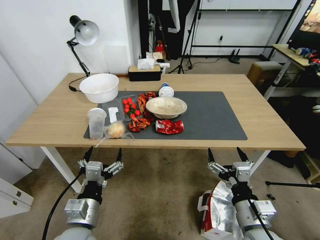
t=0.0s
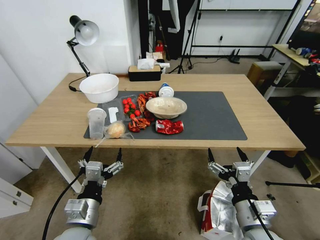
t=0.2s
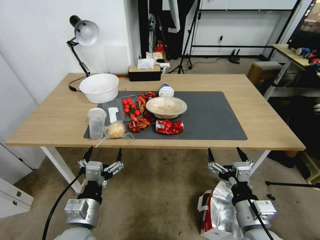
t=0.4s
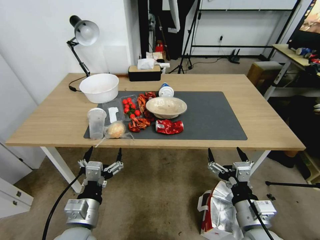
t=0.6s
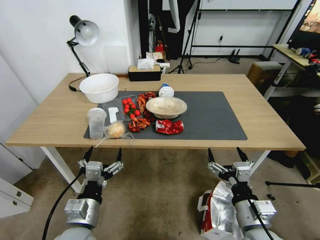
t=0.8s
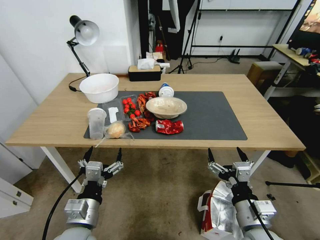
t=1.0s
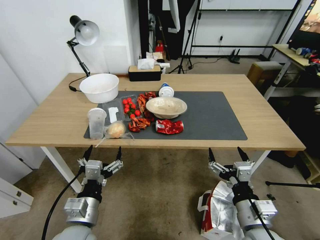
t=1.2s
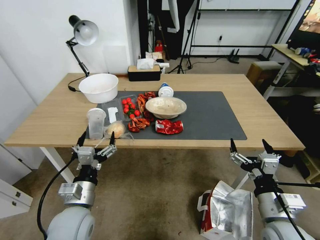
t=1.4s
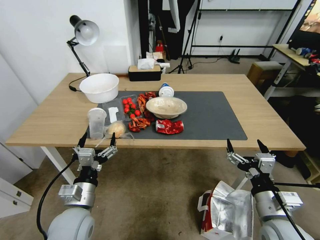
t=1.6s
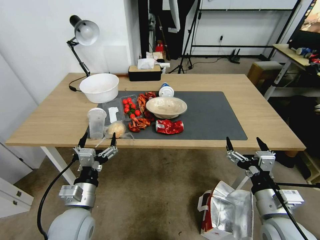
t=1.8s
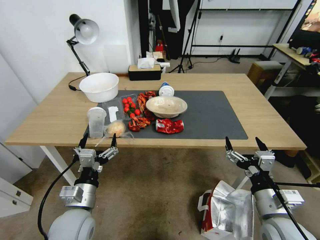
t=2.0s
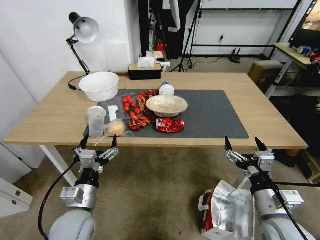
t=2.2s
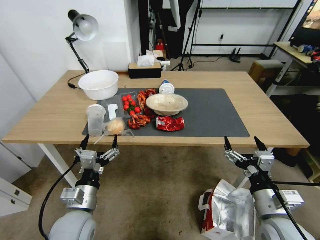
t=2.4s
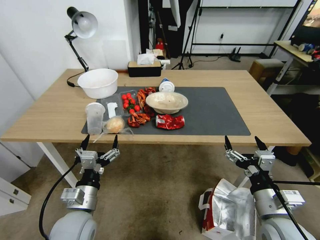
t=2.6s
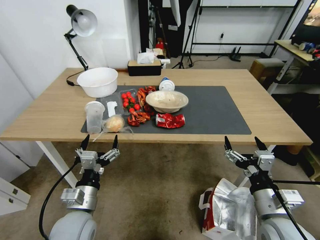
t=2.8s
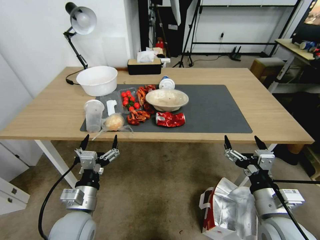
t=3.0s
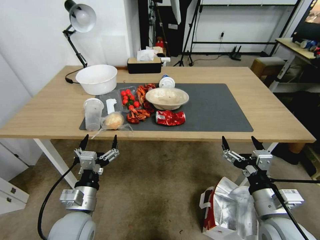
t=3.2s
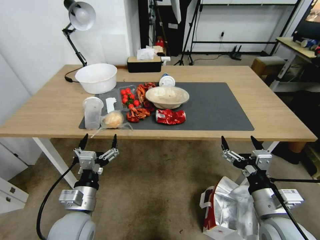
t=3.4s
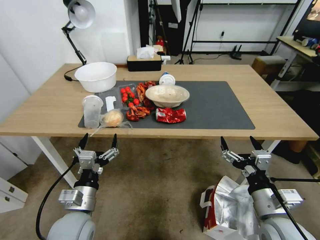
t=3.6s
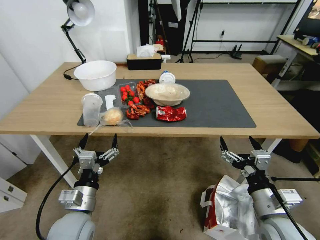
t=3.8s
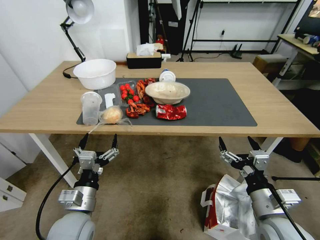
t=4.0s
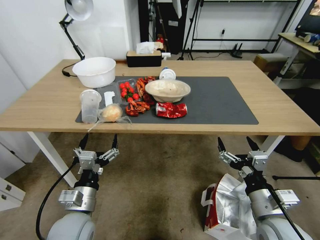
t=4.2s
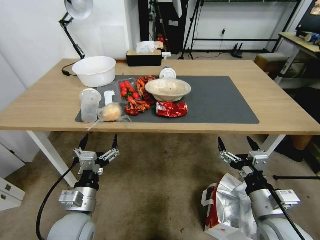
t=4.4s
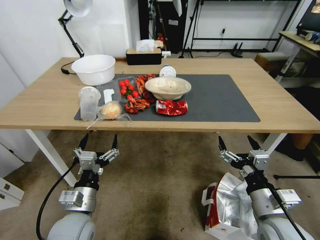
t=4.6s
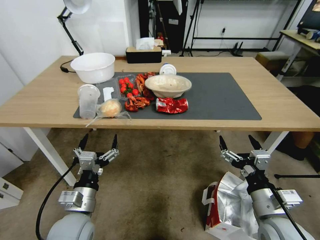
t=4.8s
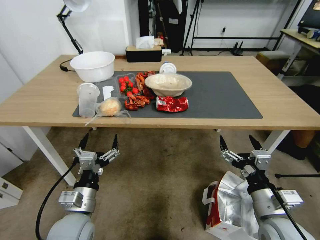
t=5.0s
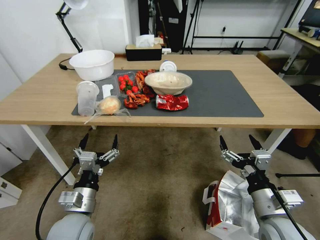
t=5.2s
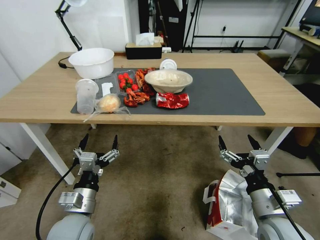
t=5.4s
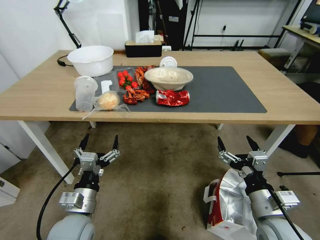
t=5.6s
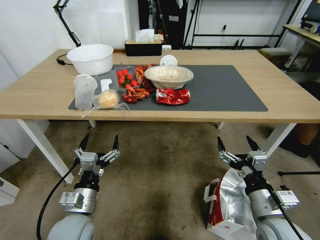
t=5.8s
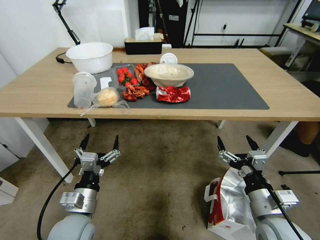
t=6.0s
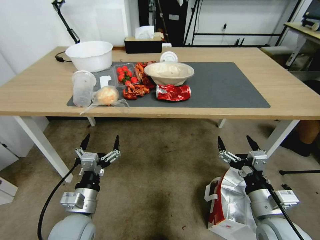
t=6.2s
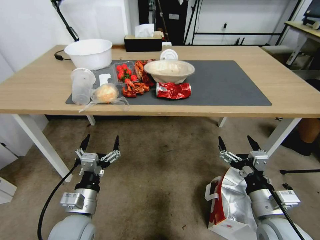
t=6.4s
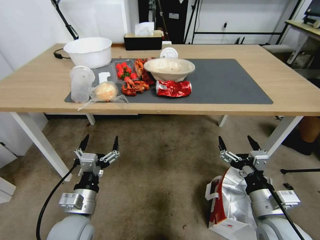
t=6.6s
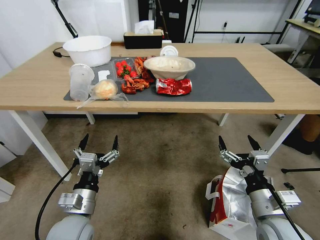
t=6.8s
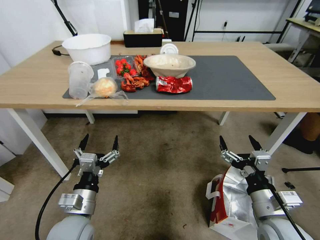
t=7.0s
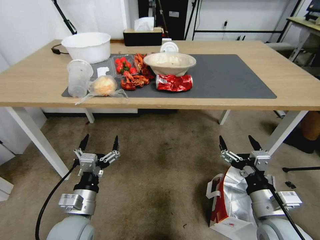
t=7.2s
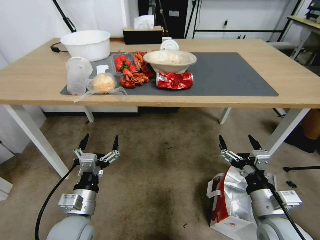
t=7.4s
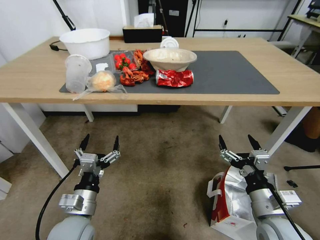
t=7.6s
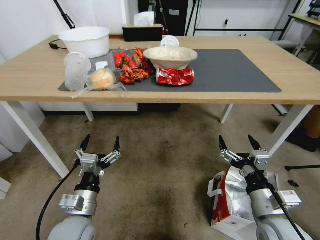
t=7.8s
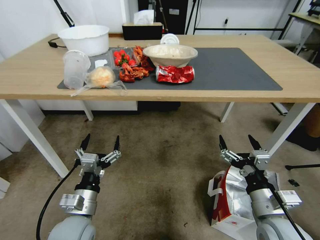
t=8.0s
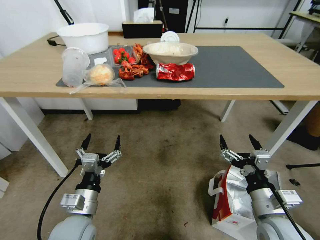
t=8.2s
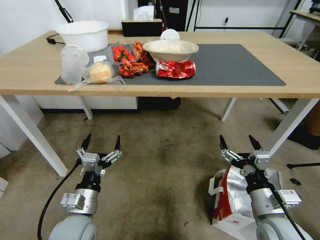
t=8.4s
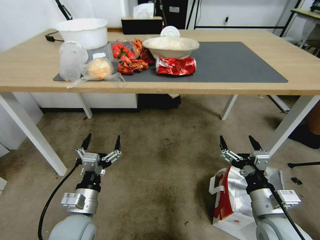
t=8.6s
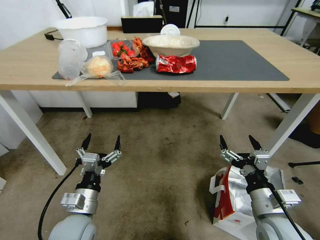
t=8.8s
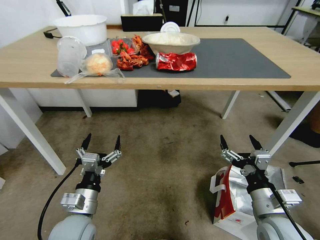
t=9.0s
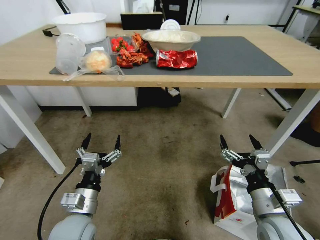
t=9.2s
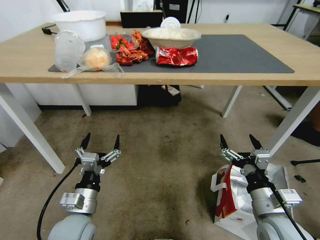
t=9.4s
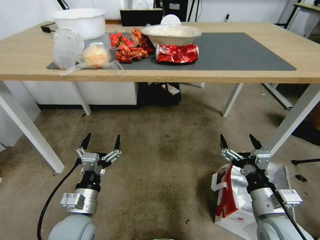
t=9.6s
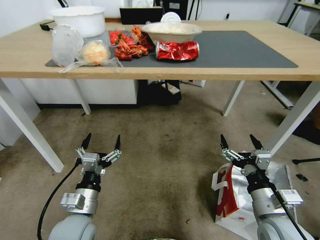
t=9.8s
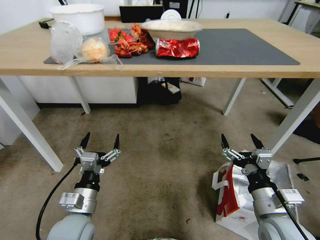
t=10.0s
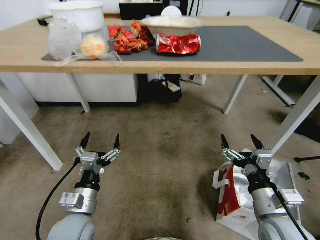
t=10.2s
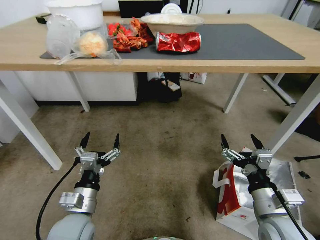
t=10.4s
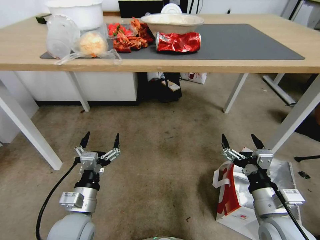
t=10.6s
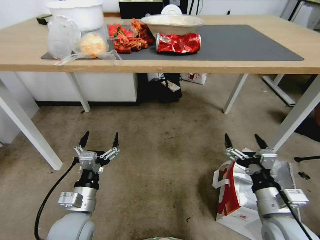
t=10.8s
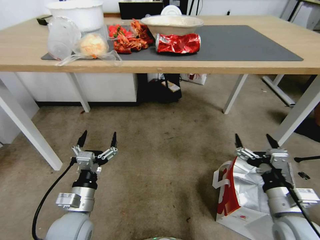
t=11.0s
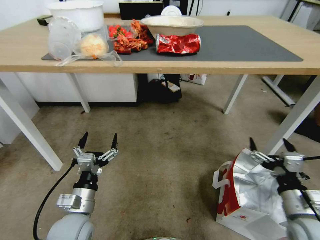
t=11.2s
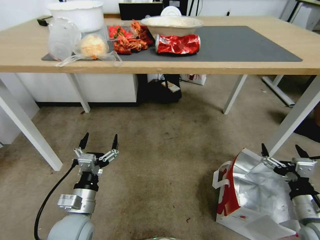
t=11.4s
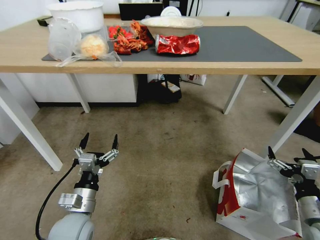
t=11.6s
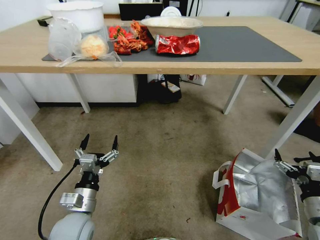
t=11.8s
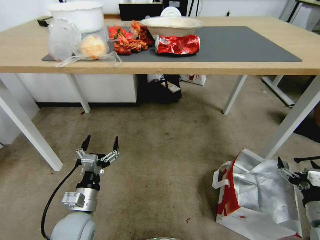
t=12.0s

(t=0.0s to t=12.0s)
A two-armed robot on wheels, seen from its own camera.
Task of the whole recording: Pick up the food delivery bag from the floor and place it on the table.
t=10.4s - t=12.0s: The right gripper goes roughly 20 cm to the right and downward.

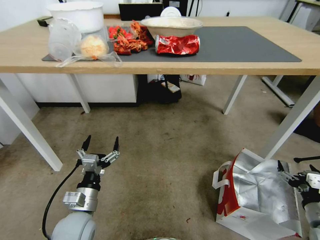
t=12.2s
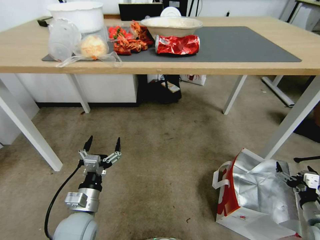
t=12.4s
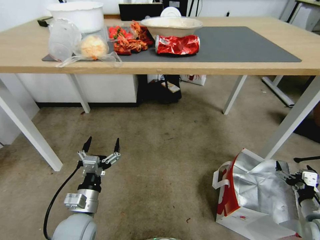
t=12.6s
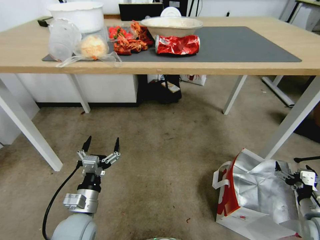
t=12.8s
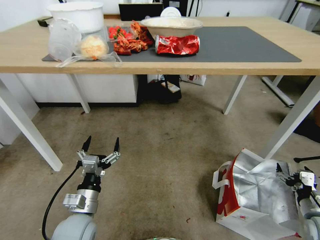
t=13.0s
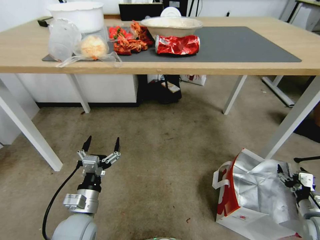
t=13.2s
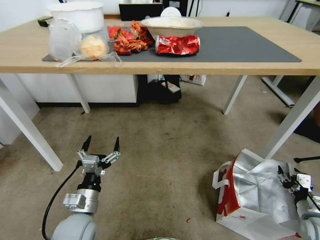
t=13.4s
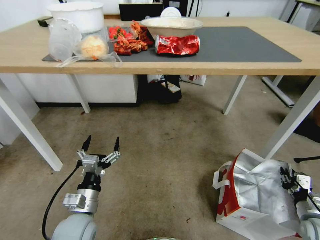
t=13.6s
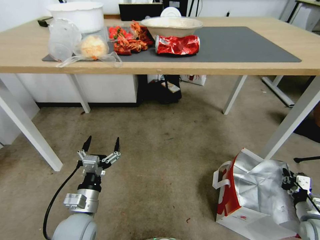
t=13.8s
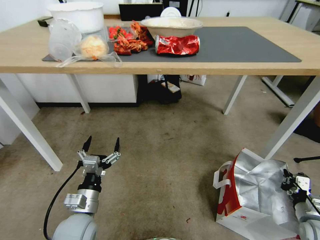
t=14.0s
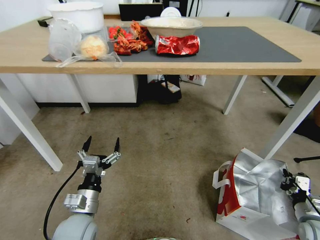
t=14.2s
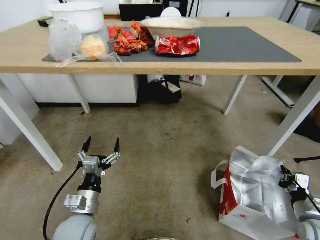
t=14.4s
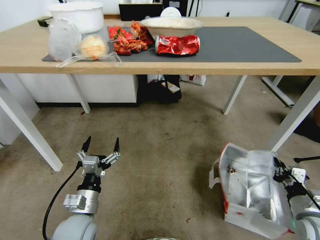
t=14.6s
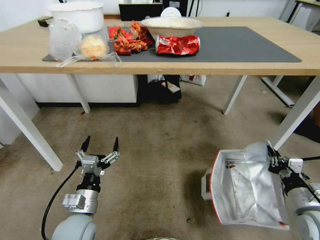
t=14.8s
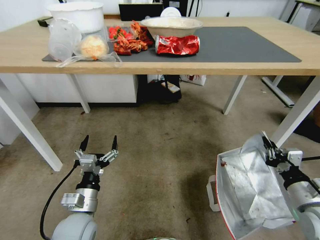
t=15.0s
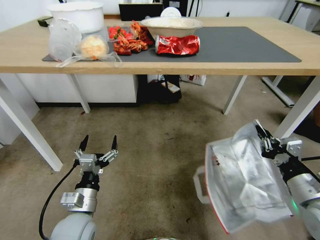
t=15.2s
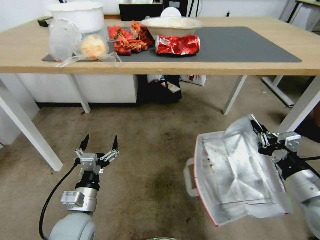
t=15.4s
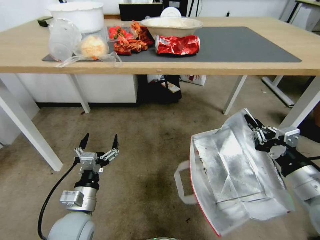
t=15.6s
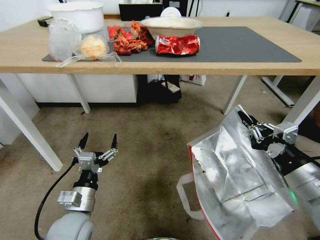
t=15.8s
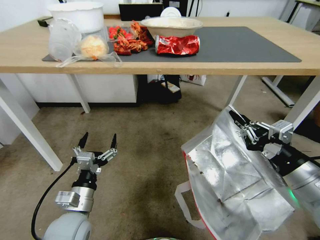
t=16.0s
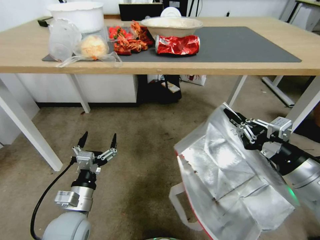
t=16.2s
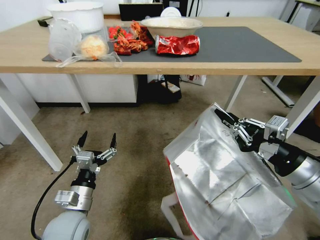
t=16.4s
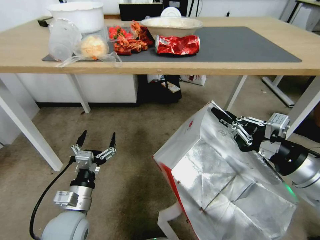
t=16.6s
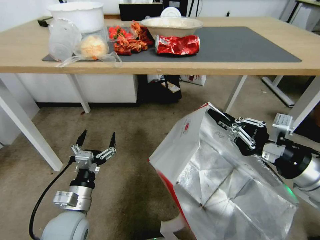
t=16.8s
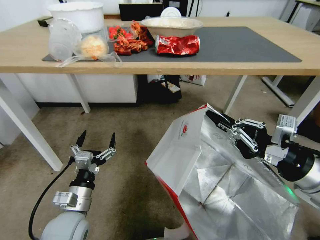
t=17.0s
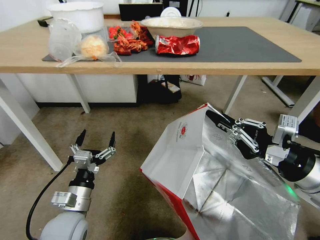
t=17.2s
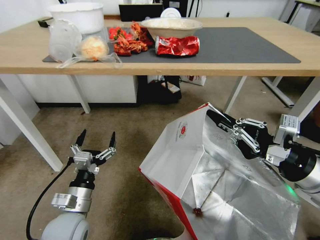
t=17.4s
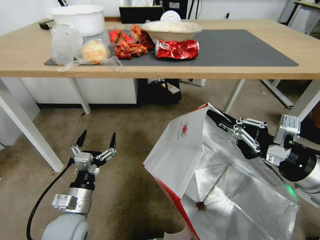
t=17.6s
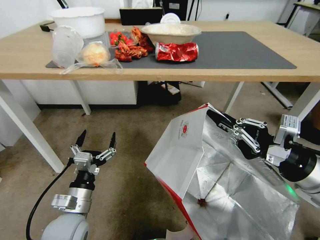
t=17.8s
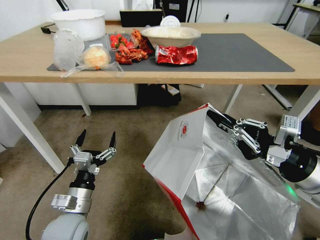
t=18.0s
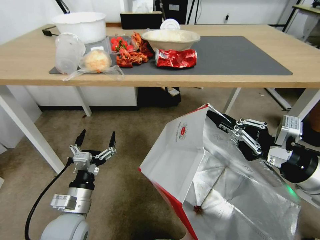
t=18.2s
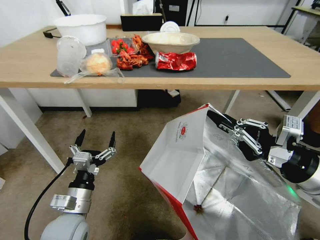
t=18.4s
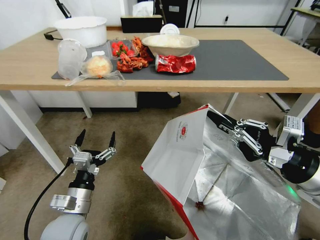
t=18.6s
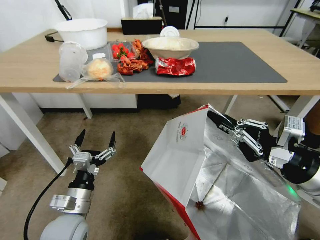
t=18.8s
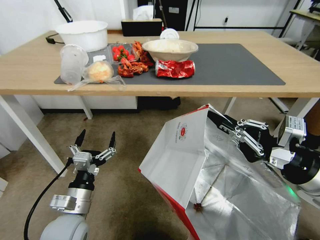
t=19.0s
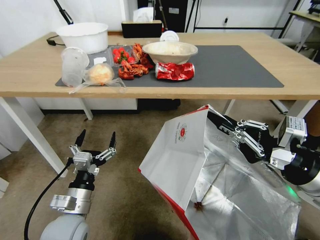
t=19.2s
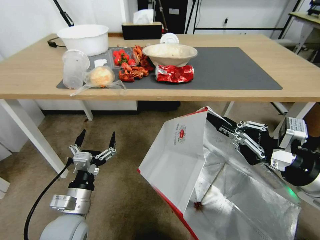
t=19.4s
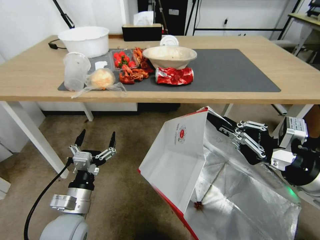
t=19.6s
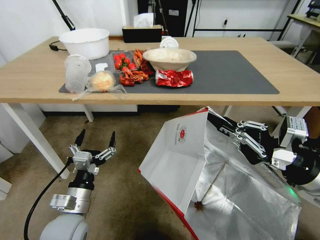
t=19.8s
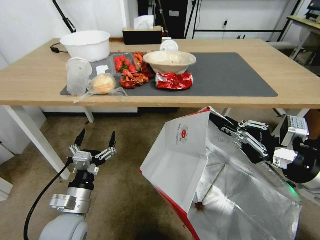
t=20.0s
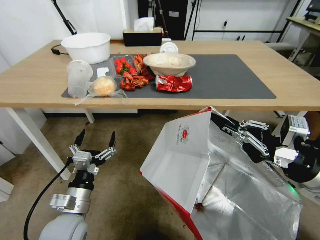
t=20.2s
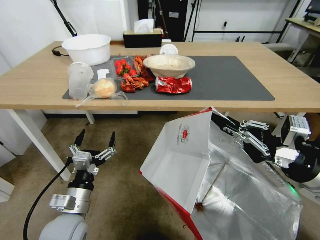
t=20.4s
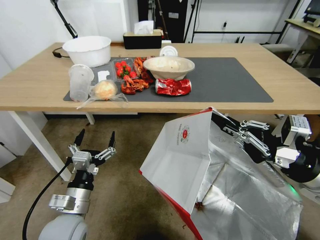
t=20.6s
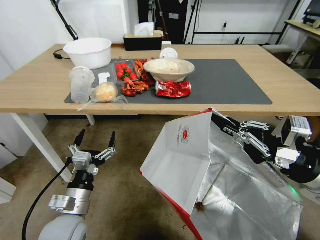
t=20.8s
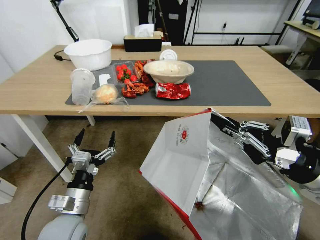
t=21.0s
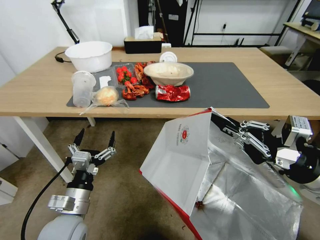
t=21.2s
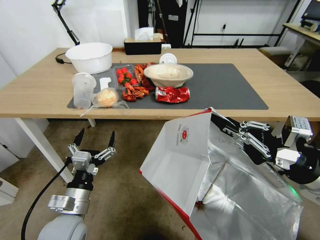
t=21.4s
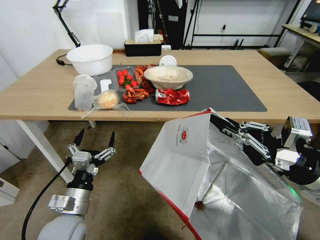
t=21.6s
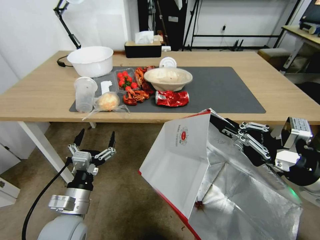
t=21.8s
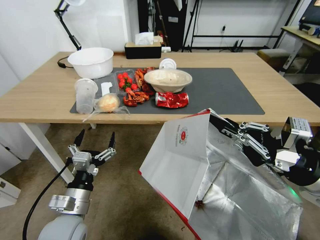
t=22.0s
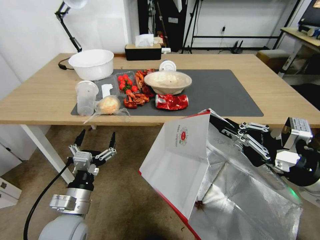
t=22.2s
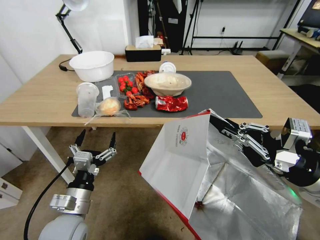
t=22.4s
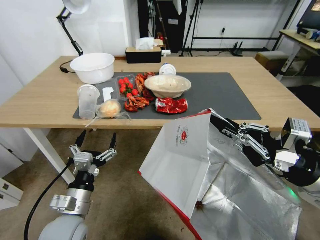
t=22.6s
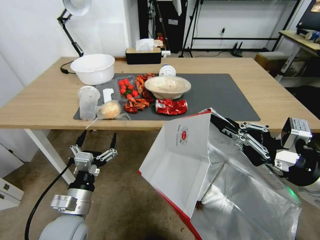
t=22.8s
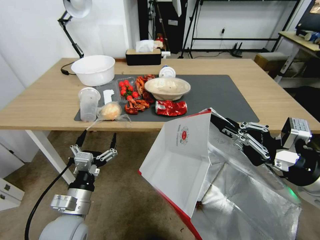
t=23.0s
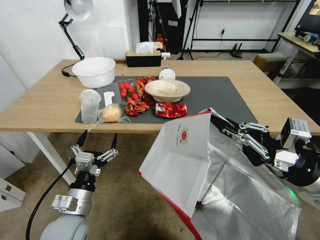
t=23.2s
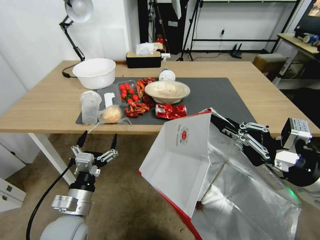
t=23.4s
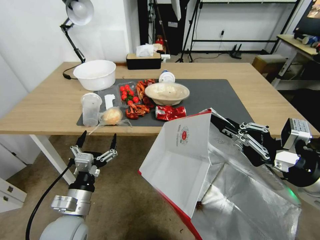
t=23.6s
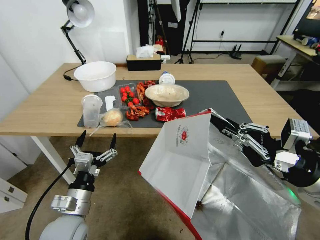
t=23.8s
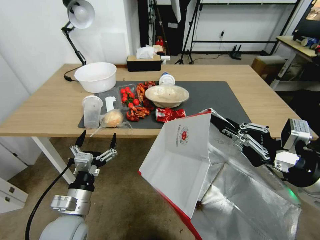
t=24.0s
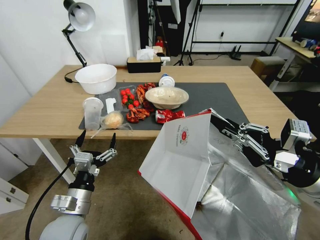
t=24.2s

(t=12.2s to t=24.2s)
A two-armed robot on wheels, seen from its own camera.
Task of the whole recording: Pick up the food delivery bag from the floor and place it on the table.
t=12.2s - t=13.8s: The right gripper moves some 5 cm, and closes.
t=13.8s - t=15.2s: The right gripper heads upward and to the left, covering about 20 cm.
t=15.2s - t=16.6s: The right gripper moves upward, some 10 cm.
